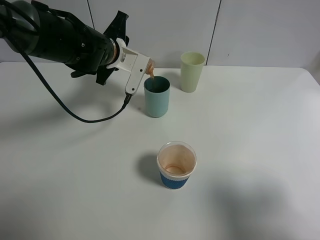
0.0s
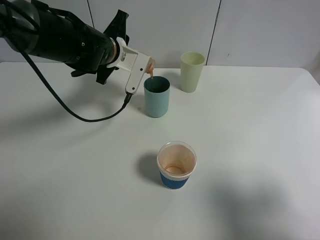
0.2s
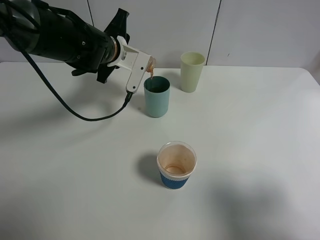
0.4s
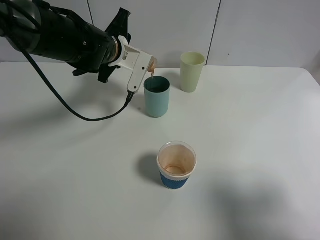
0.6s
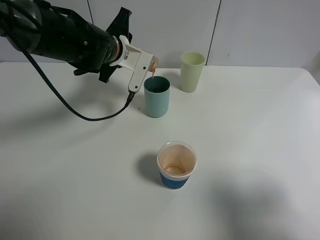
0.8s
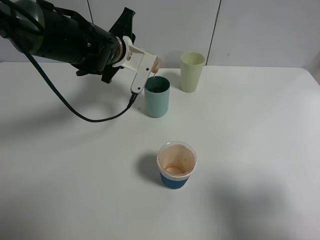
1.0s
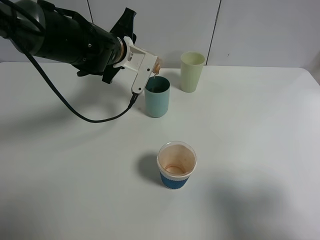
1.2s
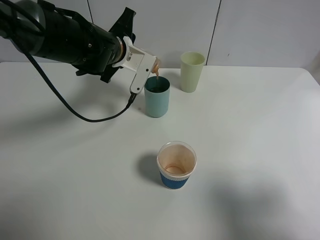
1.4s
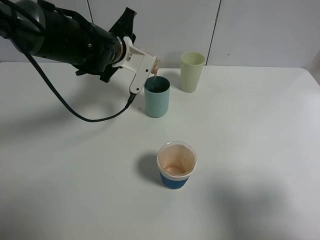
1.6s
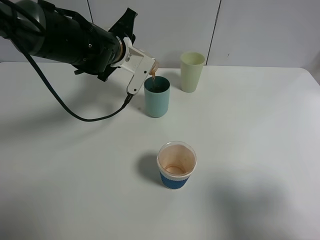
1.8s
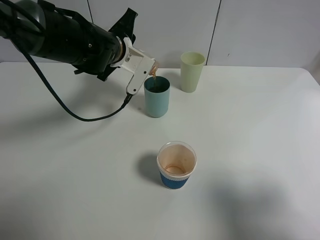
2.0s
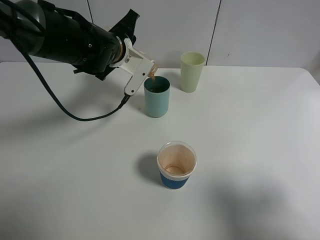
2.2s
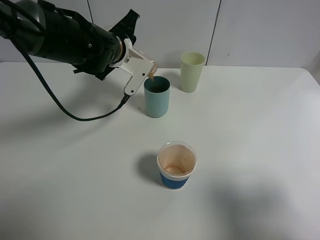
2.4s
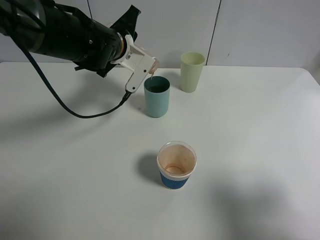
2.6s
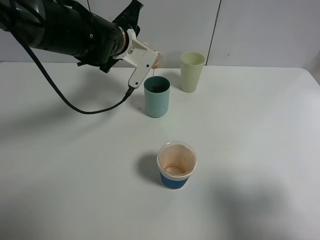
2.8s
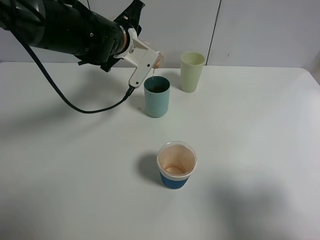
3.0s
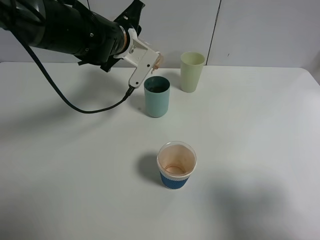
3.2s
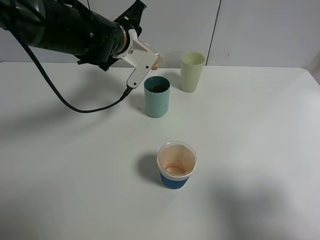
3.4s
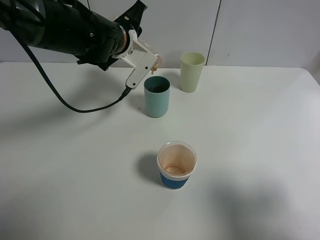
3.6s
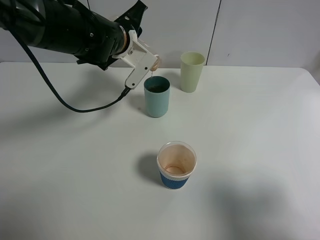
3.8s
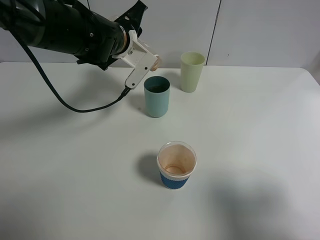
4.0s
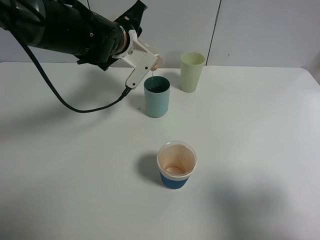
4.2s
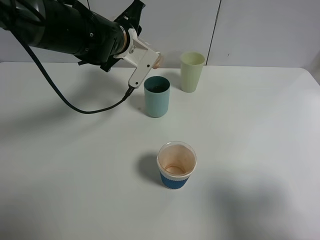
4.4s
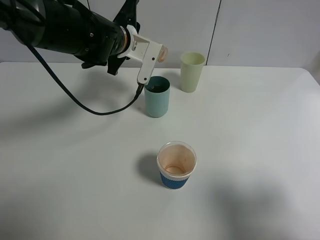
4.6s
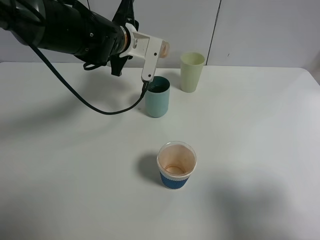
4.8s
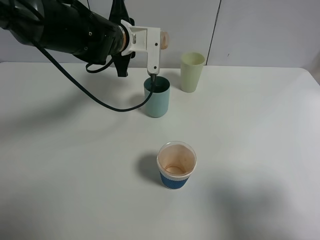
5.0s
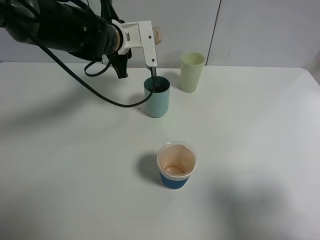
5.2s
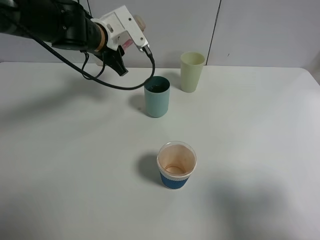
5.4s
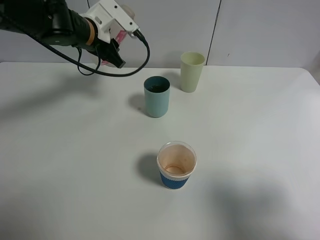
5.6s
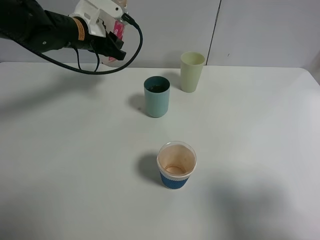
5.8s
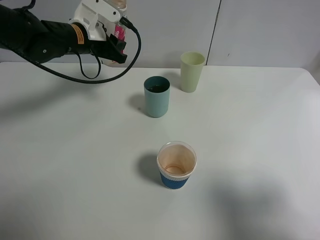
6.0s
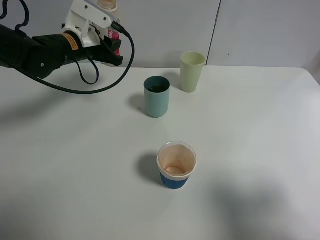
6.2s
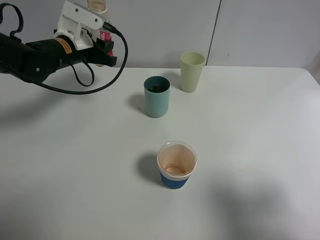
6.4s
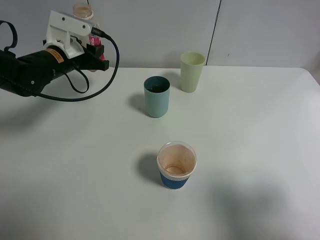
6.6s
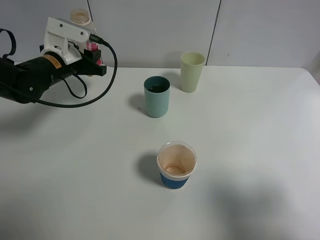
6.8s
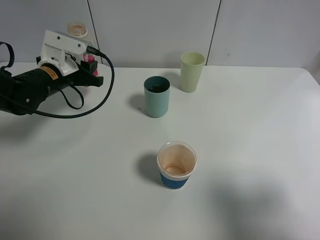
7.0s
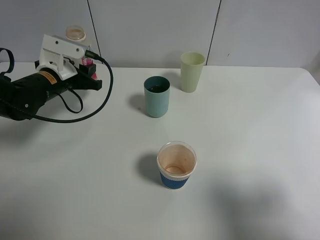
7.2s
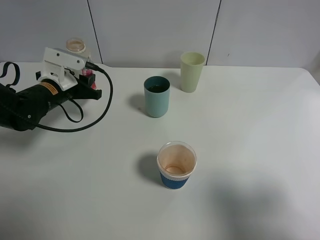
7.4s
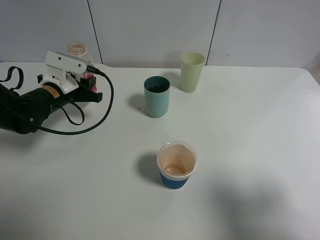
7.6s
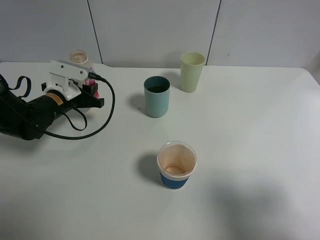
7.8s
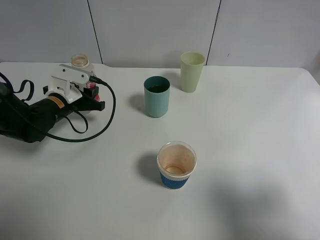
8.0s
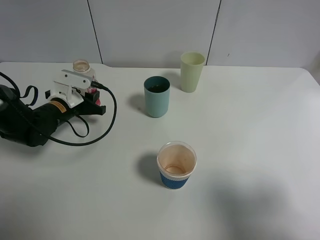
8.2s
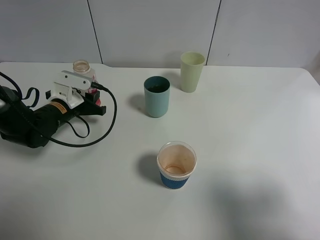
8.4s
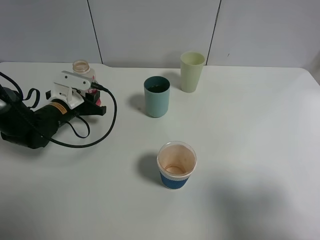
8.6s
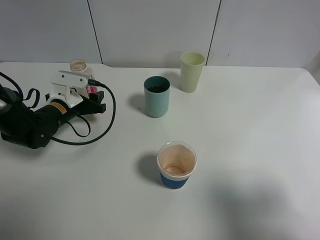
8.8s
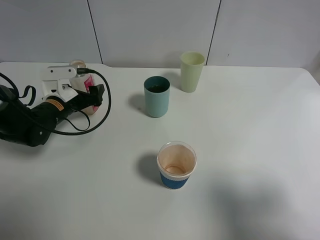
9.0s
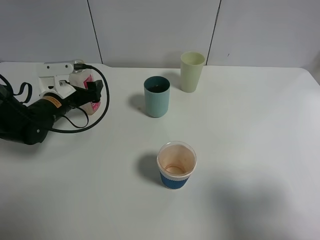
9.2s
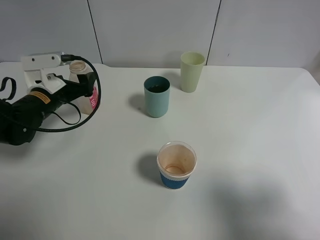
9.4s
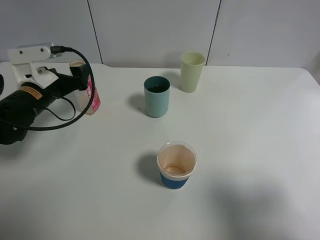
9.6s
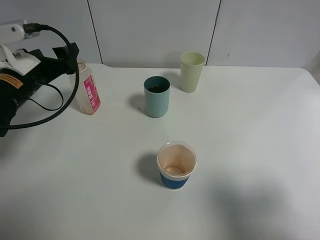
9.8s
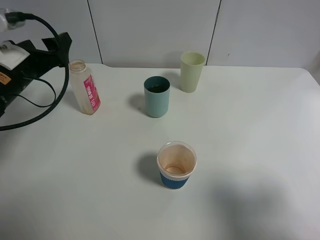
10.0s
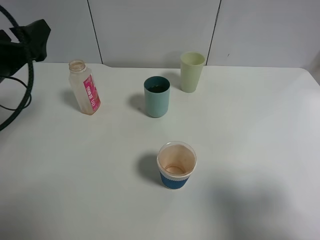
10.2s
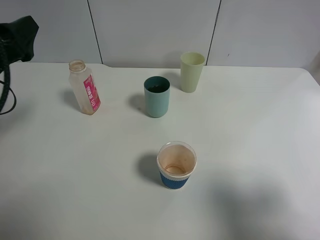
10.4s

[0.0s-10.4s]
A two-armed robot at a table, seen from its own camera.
Task of the whole recording: use a gripper to hold the bottle of the drink and pour it into a random cup.
Step, 0.0s to 4.8s: Pour the cranberry juice into the cyan cup with the left gripper.
Step, 5.0s to 9.4s: Place the cranberry juice bottle on the table with the left gripper.
0.0s to 3.0s: The grippers stay close to where they were, moving slightly.
4.4s to 6.0s: The left gripper moves to the left, roughly 10 cm.
6.0s to 7.4s: The left gripper goes roughly 10 cm downward, backward and to the left.
7.4s to 9.0s: The left gripper opens up.
9.0s to 10.4s: The left gripper moves upward and backward, approximately 20 cm.

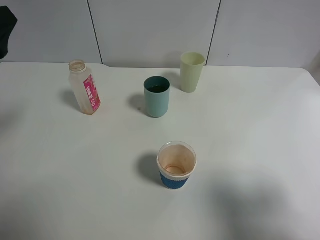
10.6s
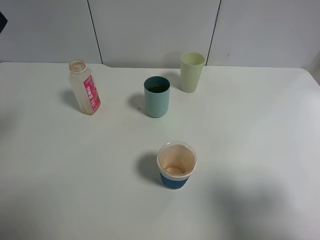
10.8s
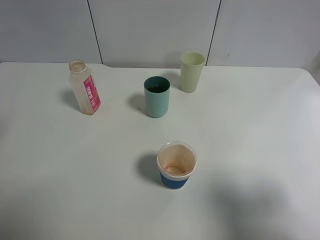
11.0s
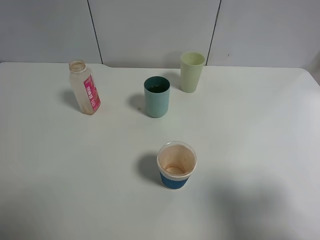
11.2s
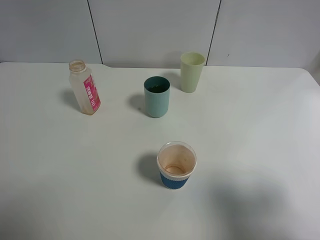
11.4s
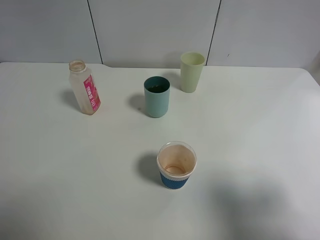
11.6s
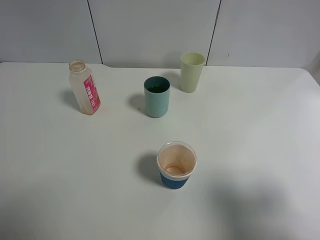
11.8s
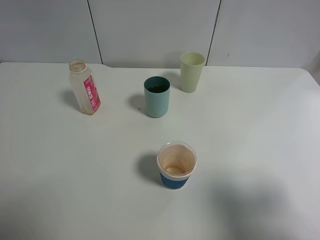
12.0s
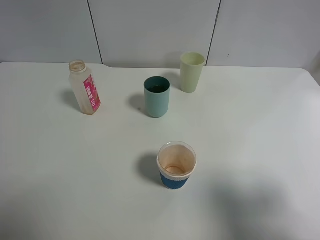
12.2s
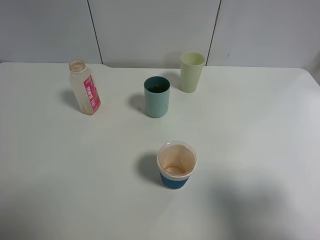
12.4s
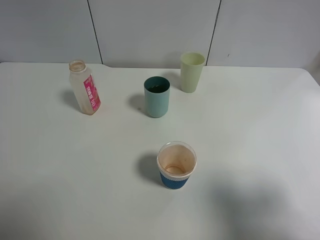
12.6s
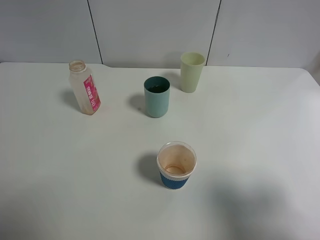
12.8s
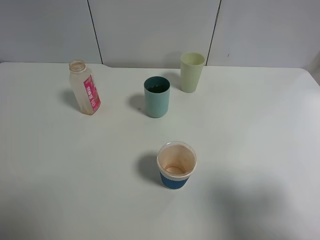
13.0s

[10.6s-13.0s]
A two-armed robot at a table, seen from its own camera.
Task of the whole recording: use a gripper to hold the bottle of the drink and pour it into a random cup.
10.6s to 11.8s: The left gripper moves backward, some 15 cm.

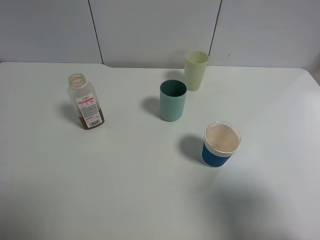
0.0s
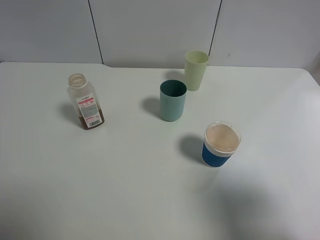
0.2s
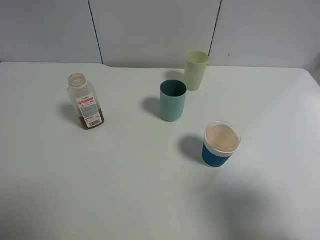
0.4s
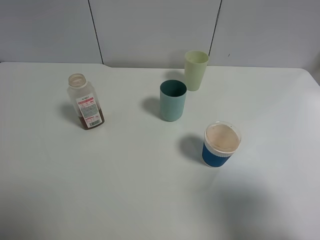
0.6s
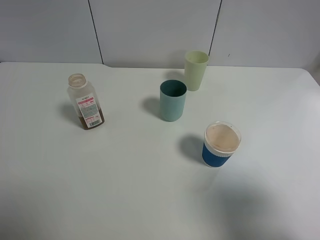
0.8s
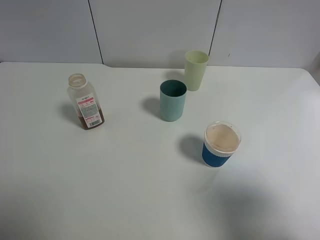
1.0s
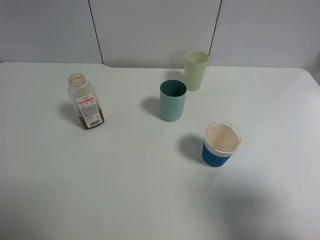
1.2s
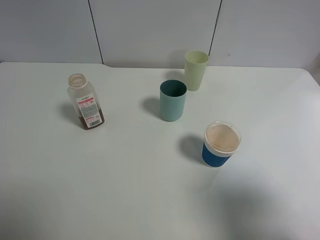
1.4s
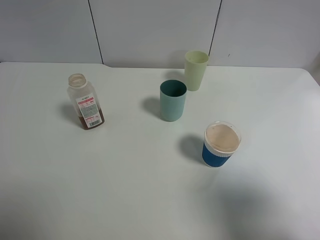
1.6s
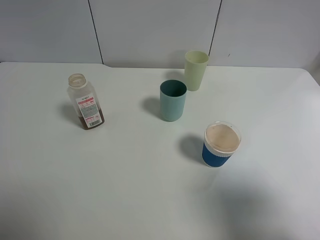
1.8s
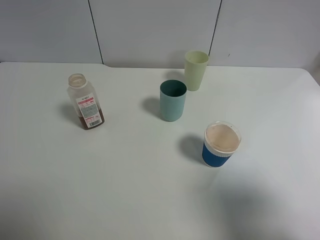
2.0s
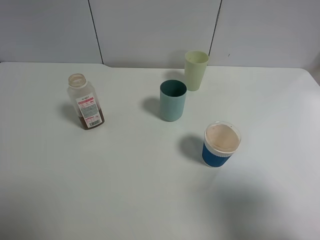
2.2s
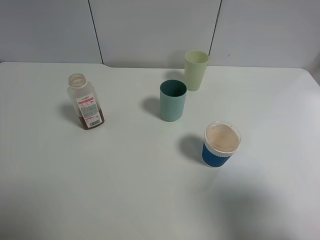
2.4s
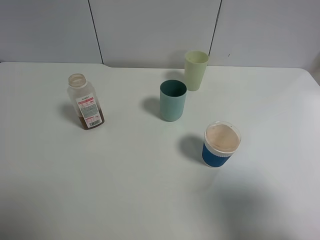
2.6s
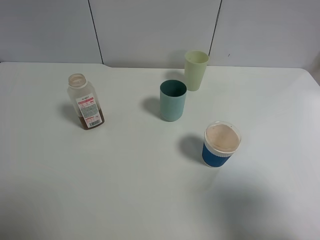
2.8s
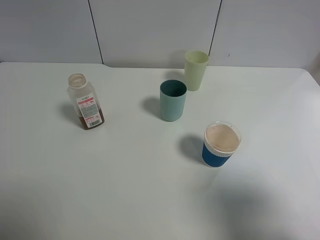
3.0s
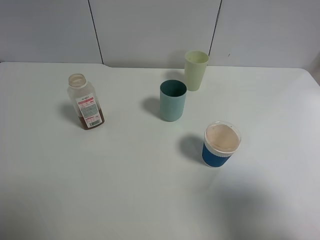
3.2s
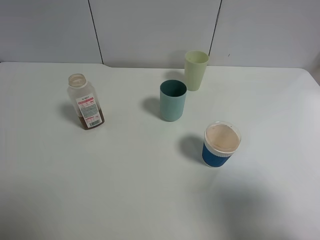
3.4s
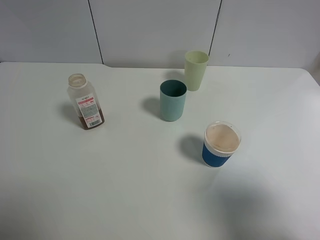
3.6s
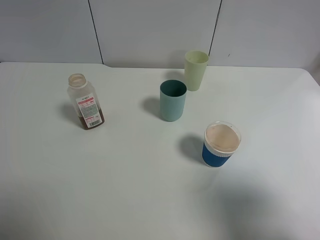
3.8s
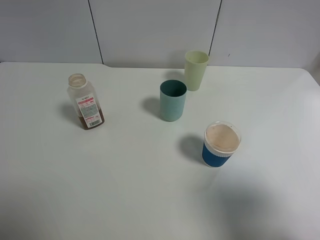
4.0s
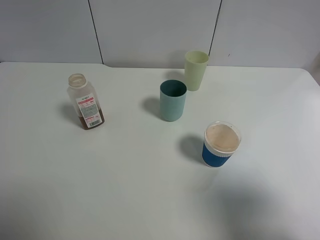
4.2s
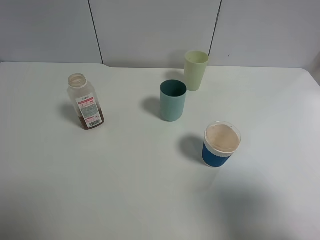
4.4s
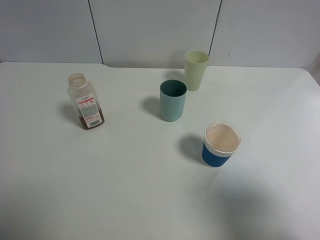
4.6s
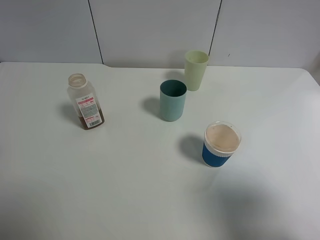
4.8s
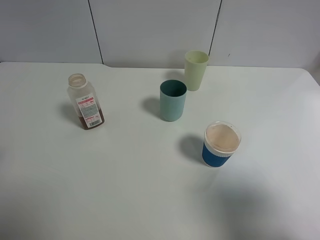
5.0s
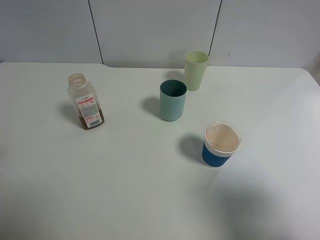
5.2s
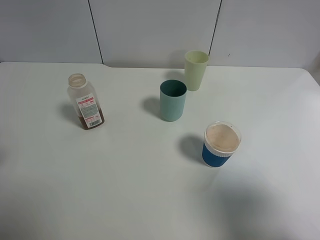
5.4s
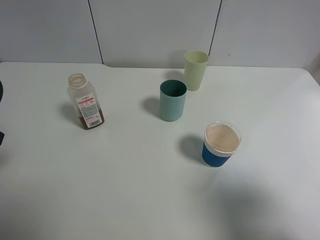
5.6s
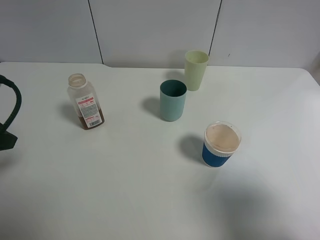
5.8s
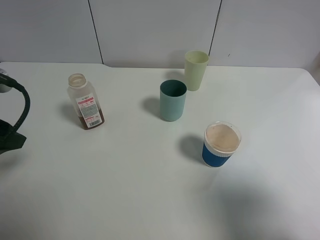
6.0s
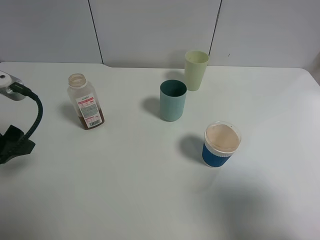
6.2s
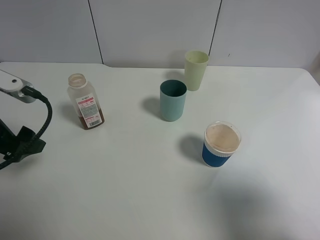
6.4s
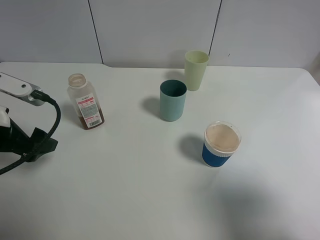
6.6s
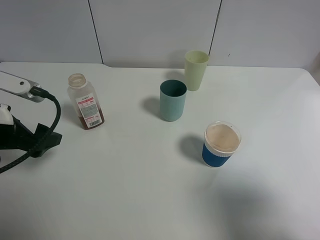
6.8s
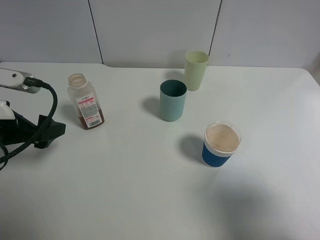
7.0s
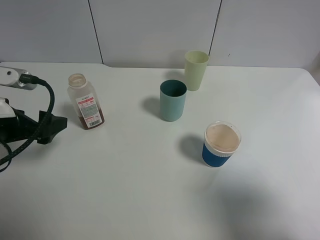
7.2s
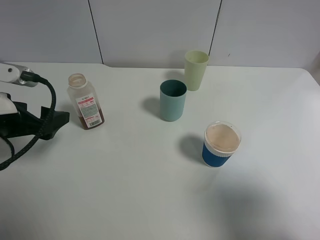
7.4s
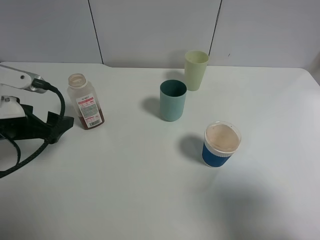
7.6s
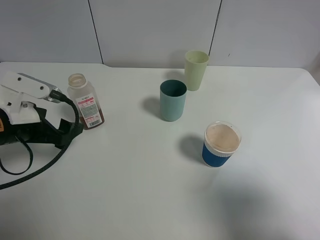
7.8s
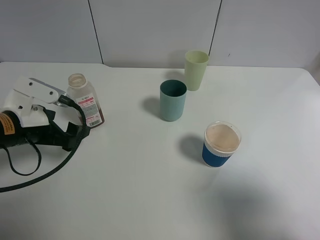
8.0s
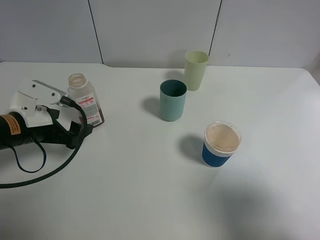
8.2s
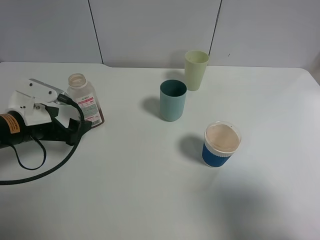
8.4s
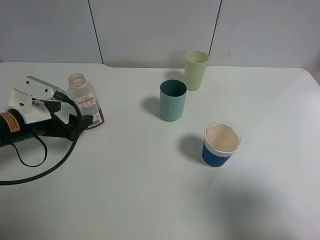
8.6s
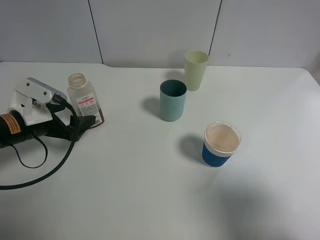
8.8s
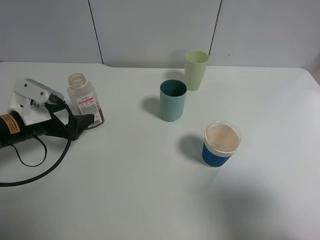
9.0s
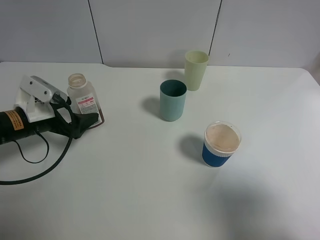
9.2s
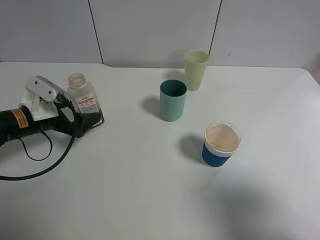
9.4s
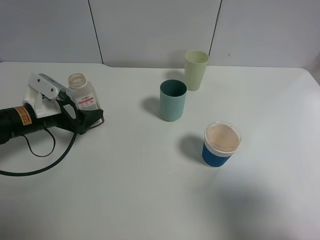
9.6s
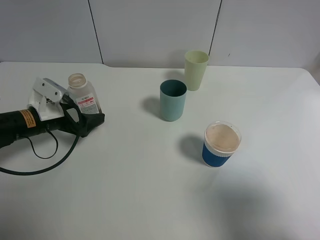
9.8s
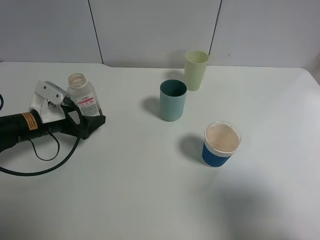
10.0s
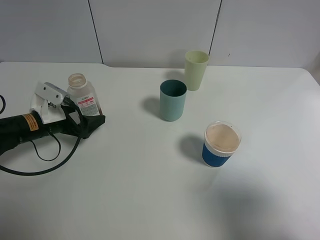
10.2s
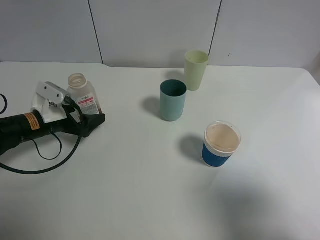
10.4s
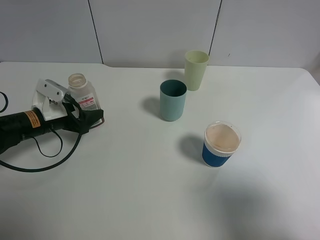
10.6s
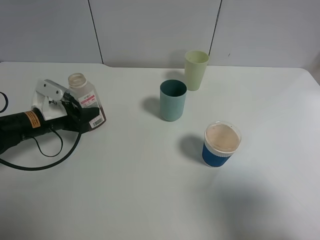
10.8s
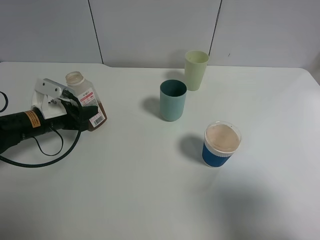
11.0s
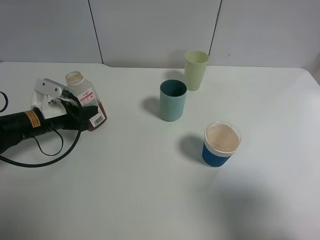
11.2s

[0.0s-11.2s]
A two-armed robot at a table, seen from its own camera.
Task of the whole recording: use a gripper to hold the bottle of the drink and pour it into a random cup.
Step, 0.0s to 10.8s: Grasp the cranberry juice bottle with the left gripper.
0.0s to 3.2s: Both grippers stay about where they are.
4.8s to 6.4s: The left gripper travels forward and downward by roughly 10 cm.
6.4s to 8.0s: The left gripper travels downward by approximately 5 cm.
8.0s to 9.6s: The left gripper shifts some 5 cm forward.
9.6s to 11.2s: The left gripper closes its fingers.
